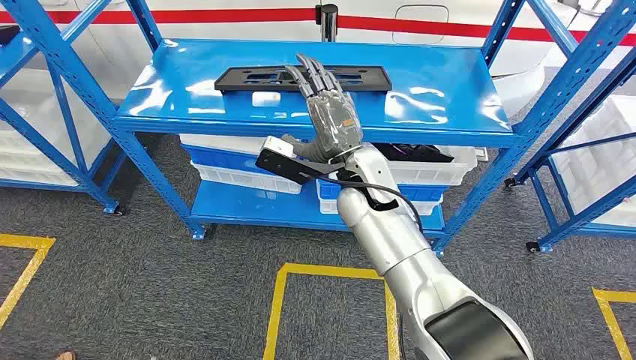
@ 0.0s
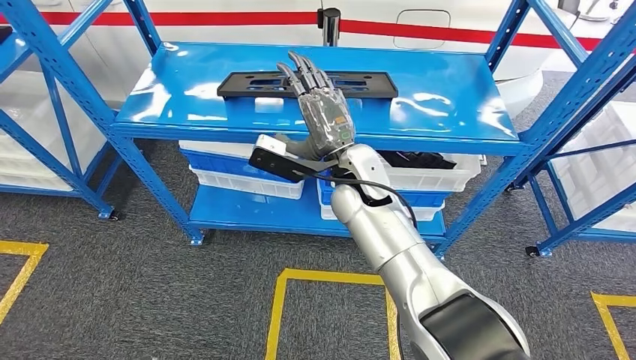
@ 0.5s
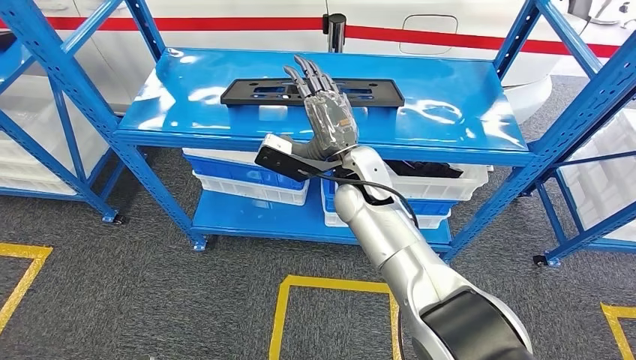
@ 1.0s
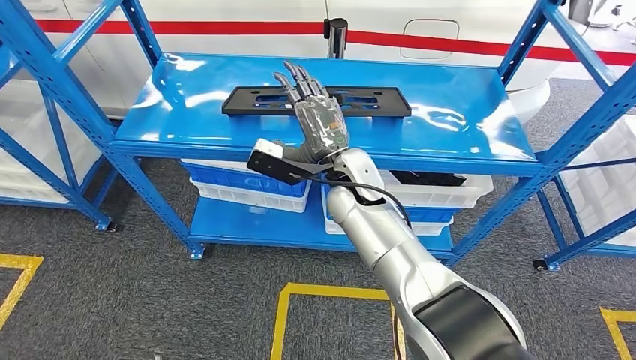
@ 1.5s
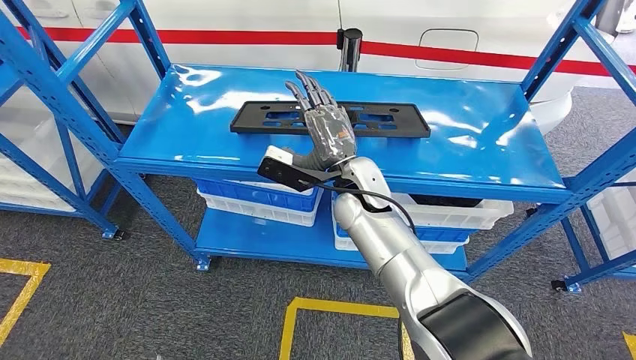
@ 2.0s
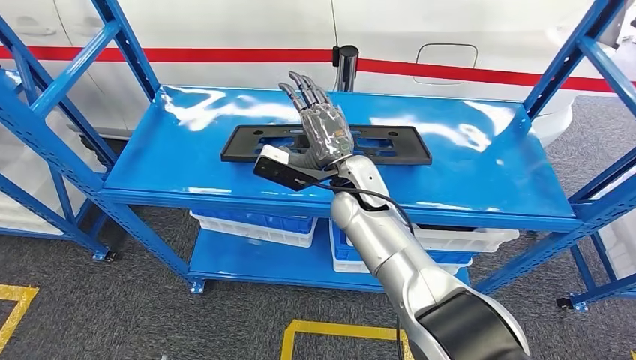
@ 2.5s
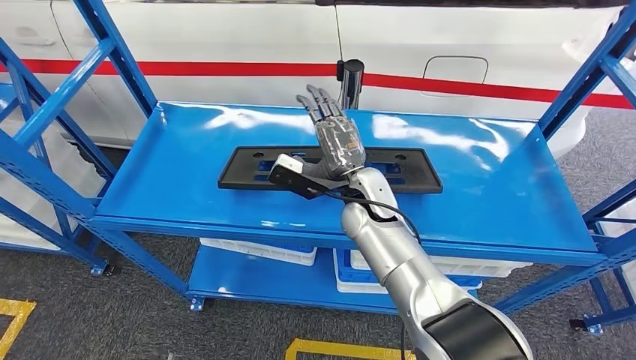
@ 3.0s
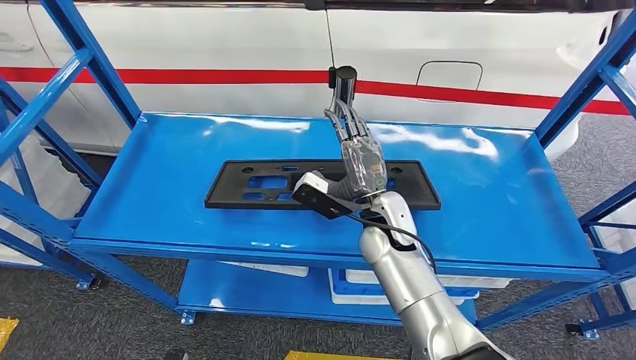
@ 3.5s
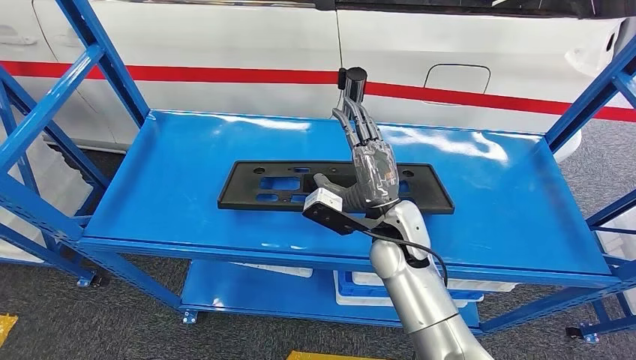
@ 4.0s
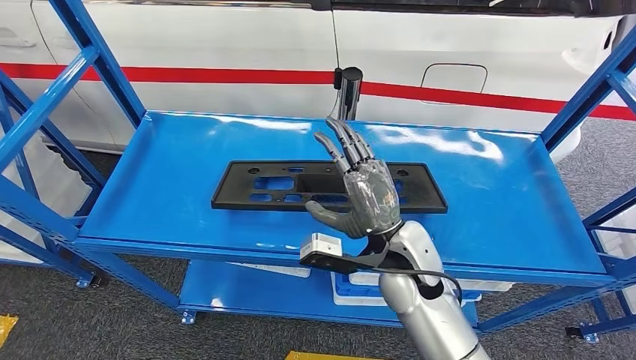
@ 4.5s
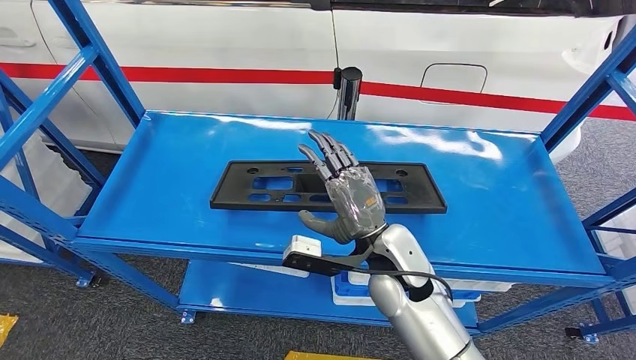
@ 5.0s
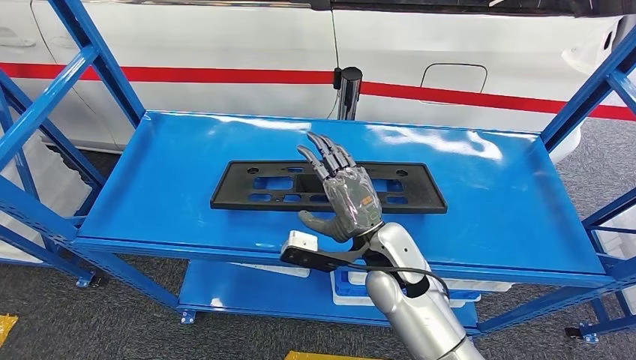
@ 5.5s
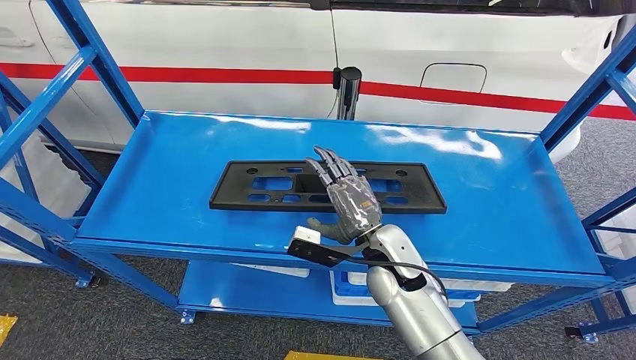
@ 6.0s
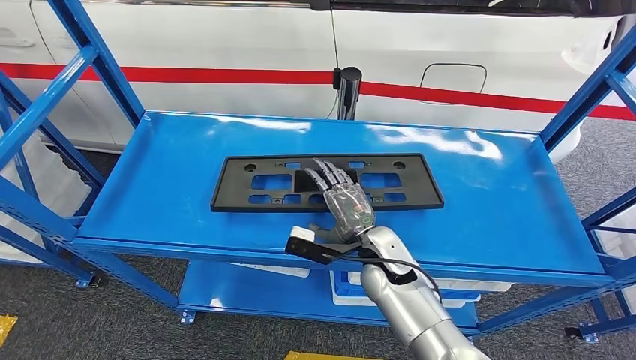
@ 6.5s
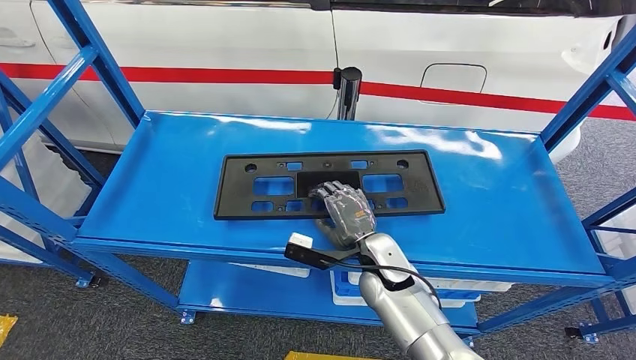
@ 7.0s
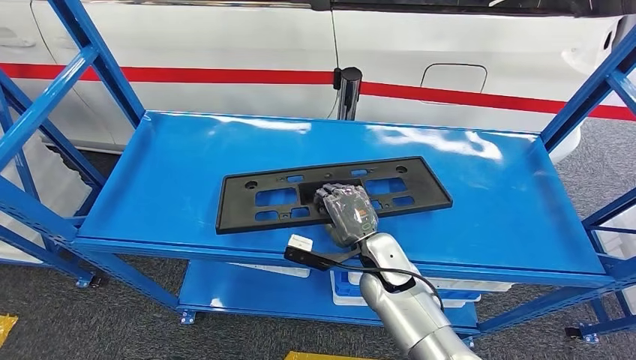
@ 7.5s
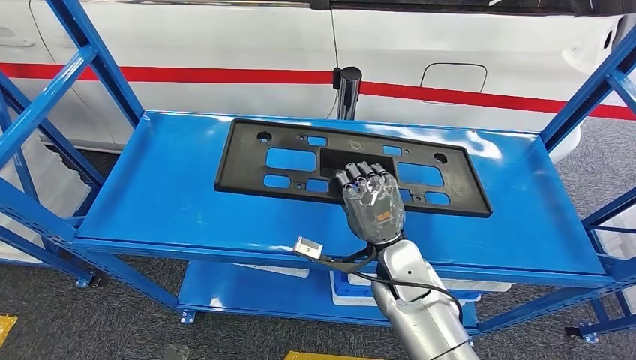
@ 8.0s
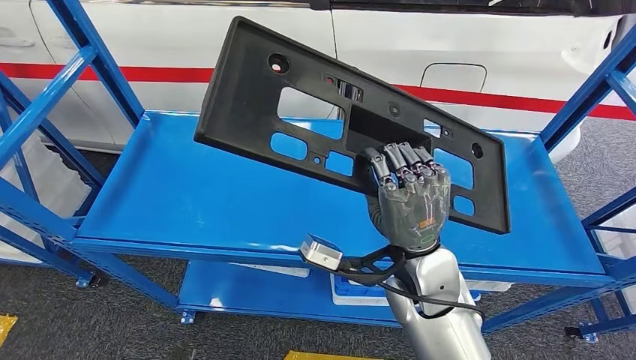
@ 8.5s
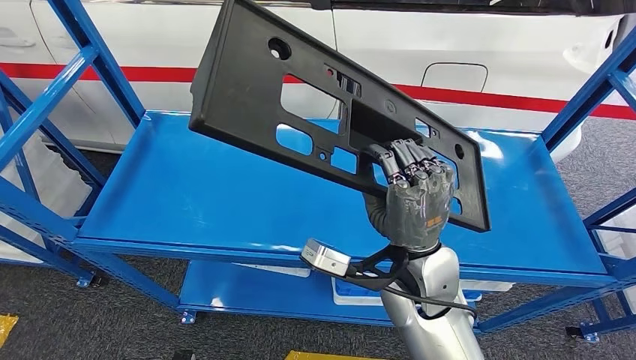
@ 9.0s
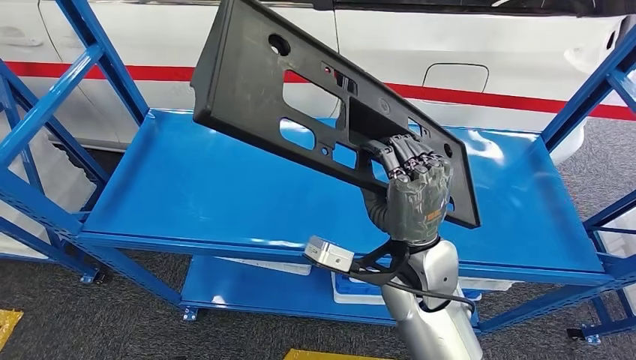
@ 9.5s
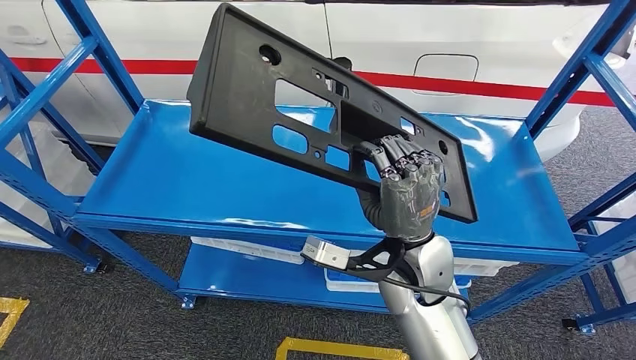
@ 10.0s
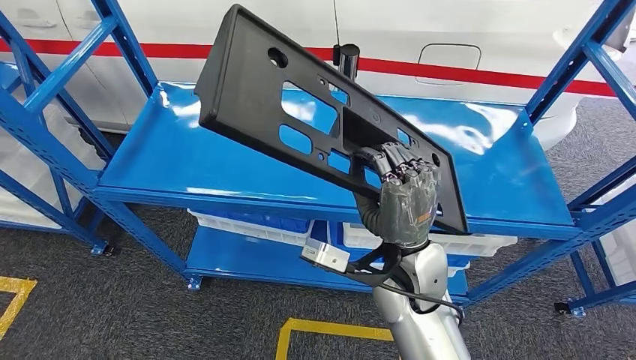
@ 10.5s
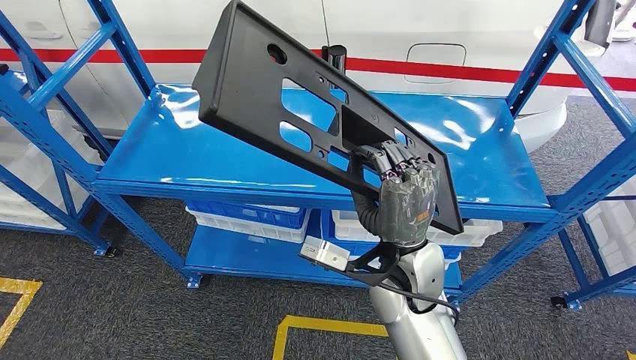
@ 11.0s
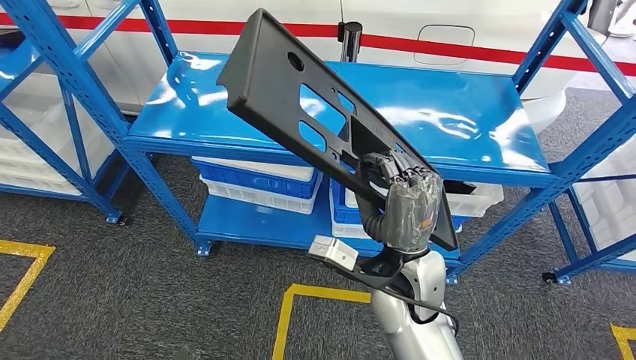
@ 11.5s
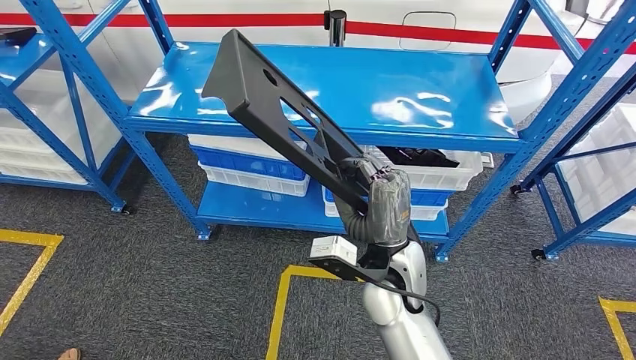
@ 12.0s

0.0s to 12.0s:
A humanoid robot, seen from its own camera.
4.0s to 6.0s: The hands move only a little.

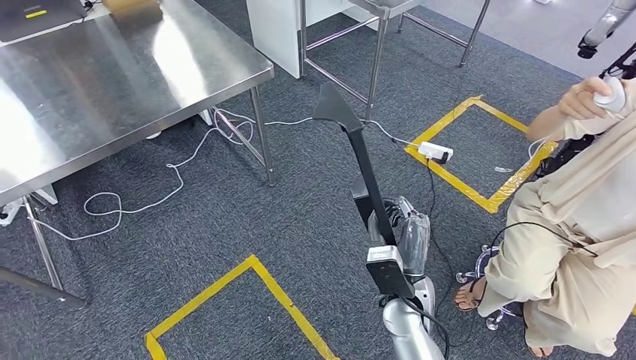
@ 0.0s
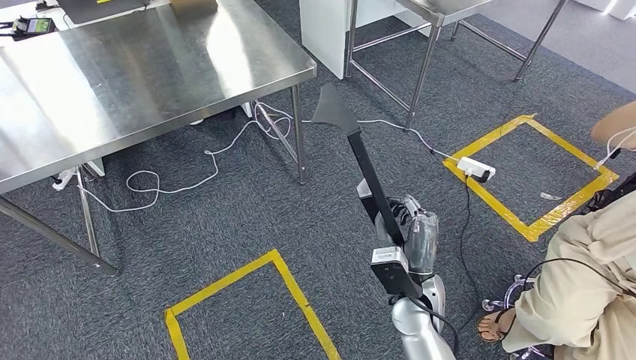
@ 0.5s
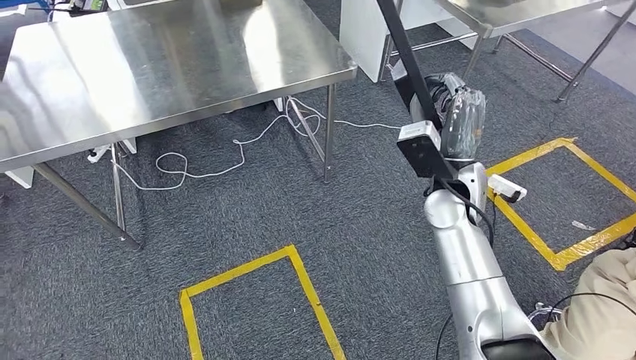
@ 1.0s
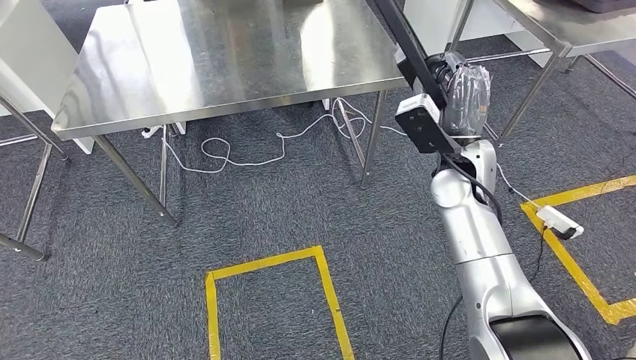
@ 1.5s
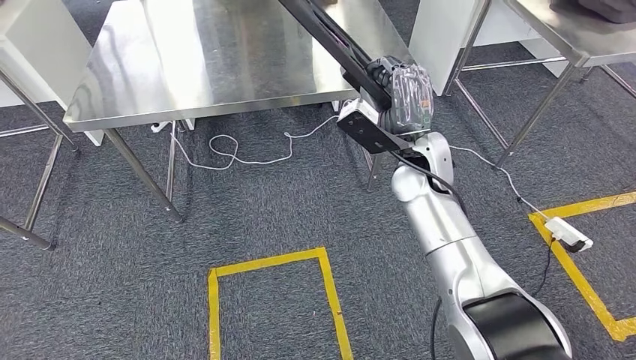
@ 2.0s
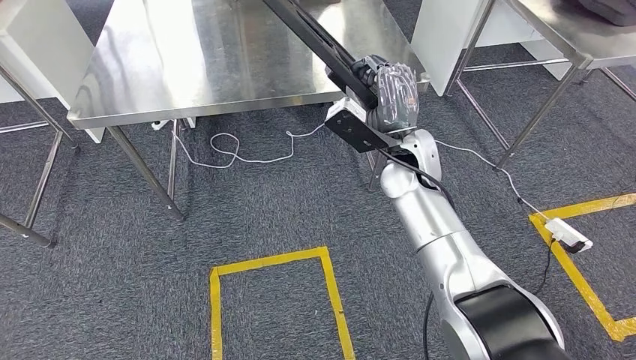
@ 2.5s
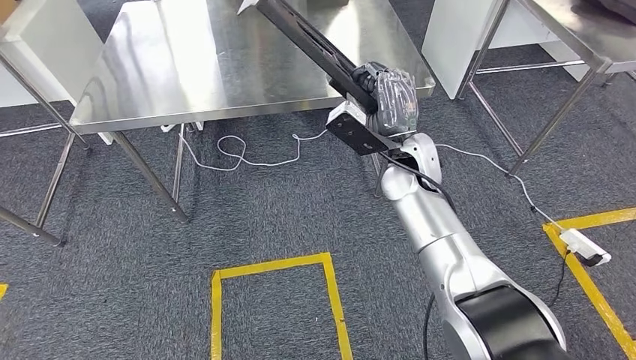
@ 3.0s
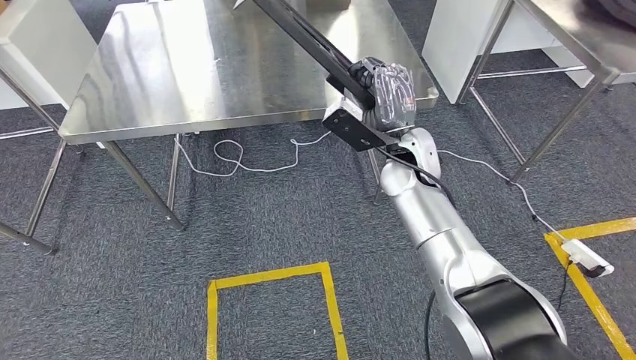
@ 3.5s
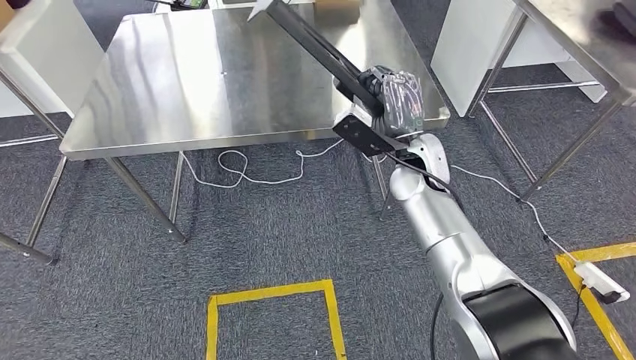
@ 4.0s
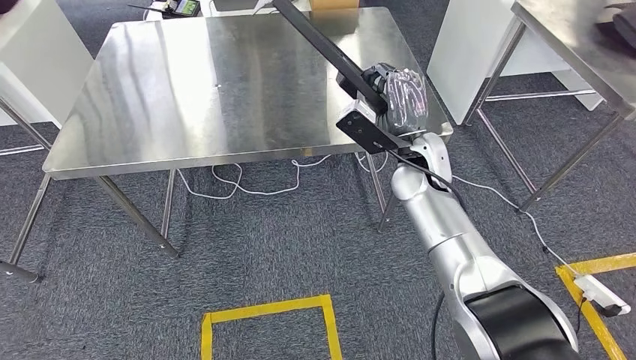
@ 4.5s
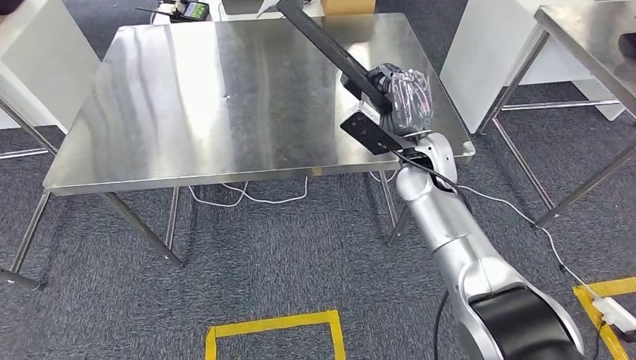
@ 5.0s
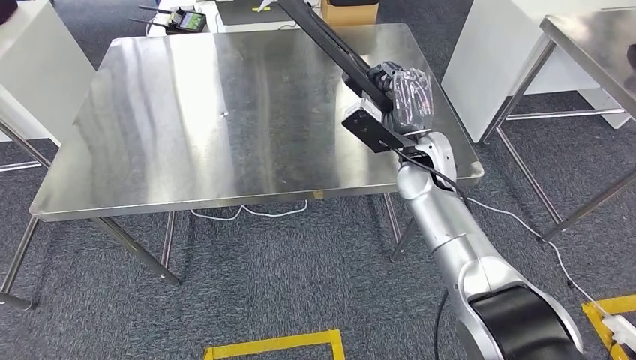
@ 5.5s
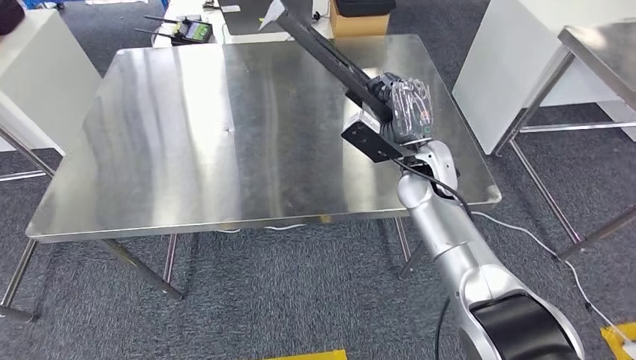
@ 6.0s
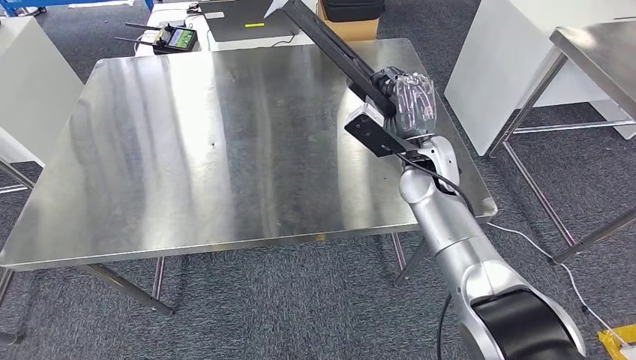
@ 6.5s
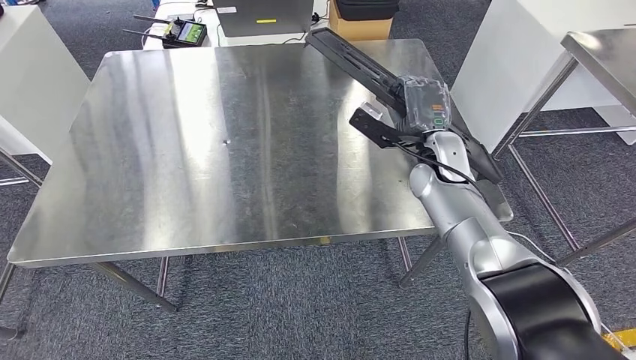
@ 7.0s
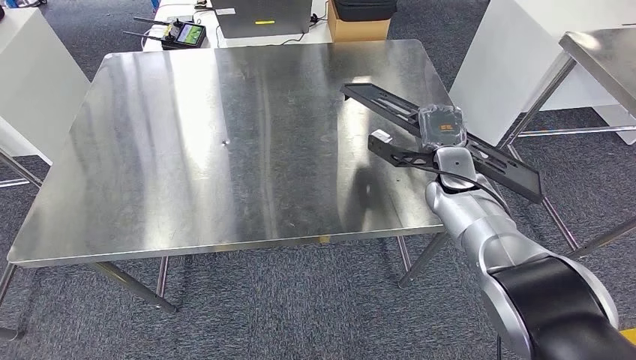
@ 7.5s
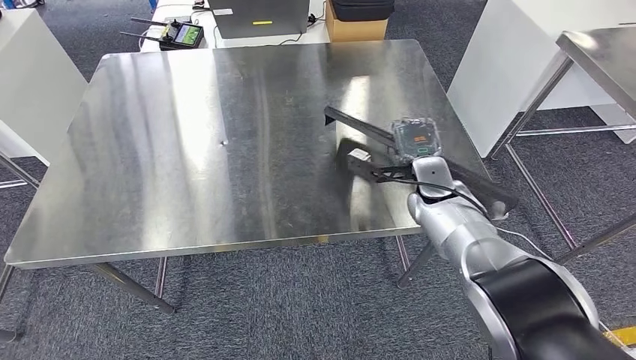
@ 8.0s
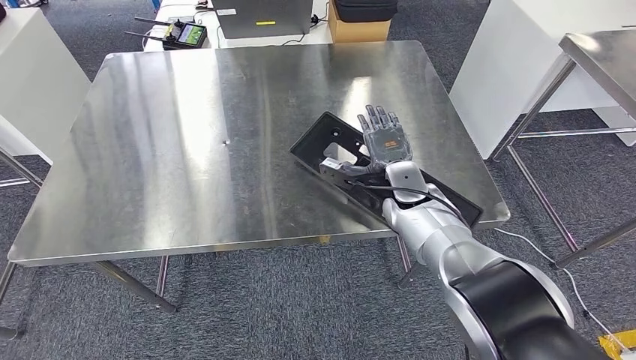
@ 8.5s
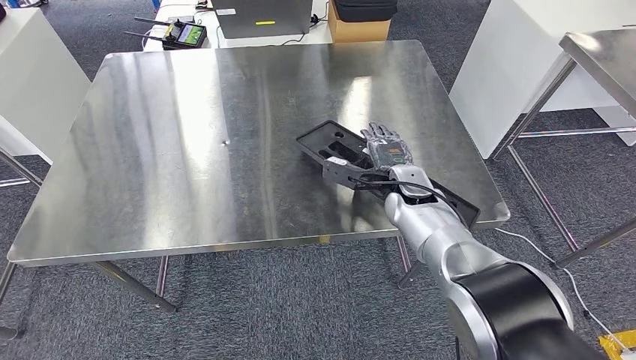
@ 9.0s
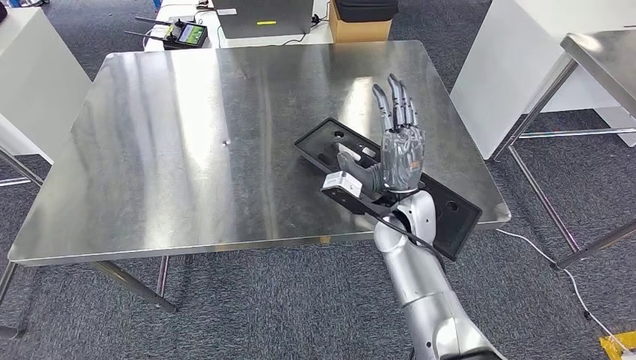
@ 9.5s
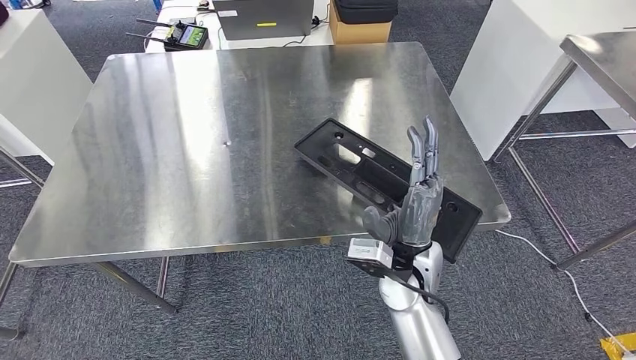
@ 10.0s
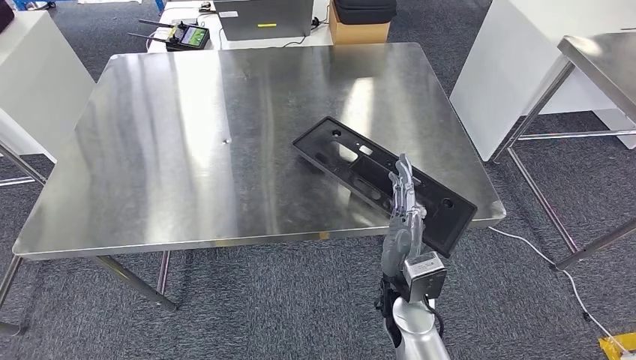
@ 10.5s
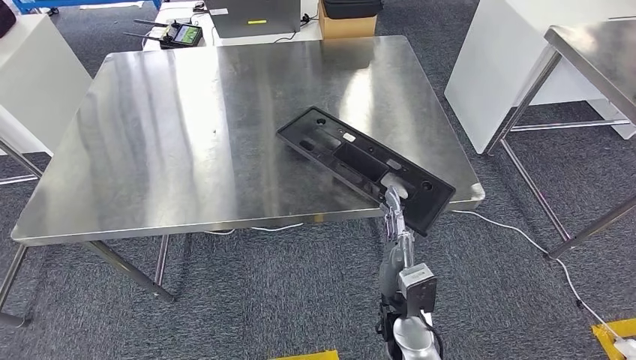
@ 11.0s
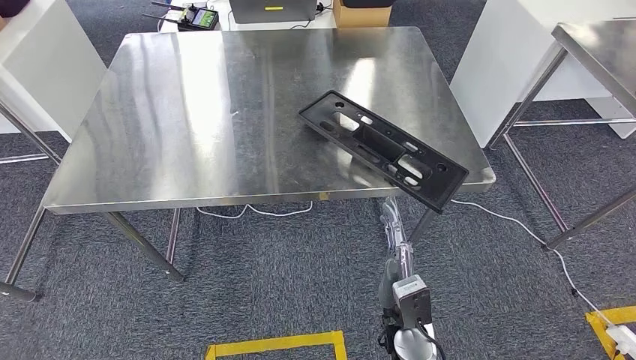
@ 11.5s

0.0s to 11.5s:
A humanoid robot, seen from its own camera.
Step, 0.0s to 2.5s: Move the large material to the front of the workbench.
7.5s to 9.5s: The right hand travels to the left and backward by some 15 cm.
